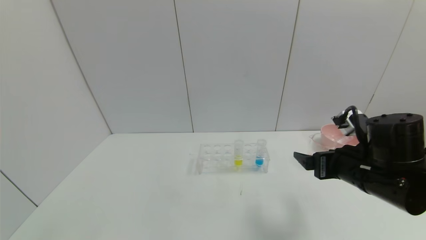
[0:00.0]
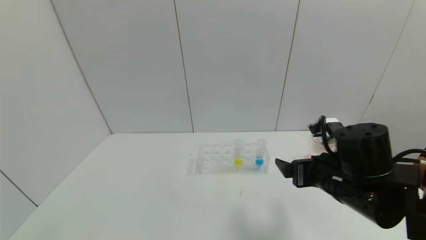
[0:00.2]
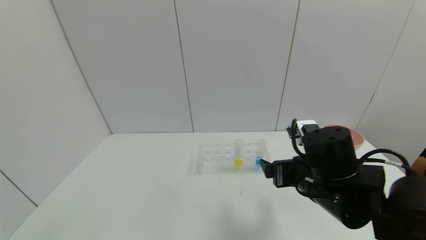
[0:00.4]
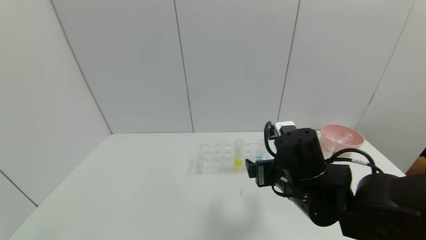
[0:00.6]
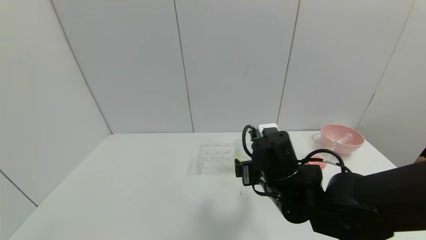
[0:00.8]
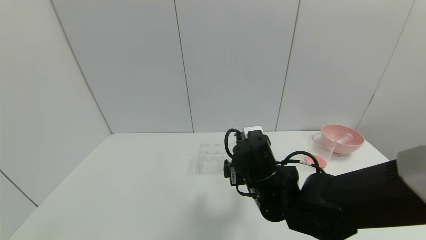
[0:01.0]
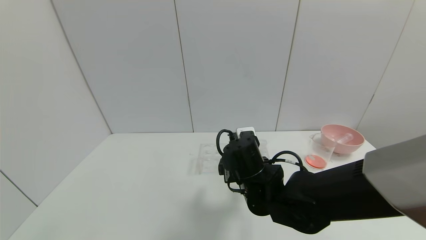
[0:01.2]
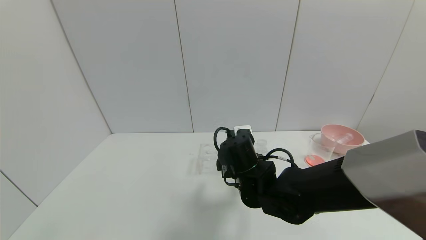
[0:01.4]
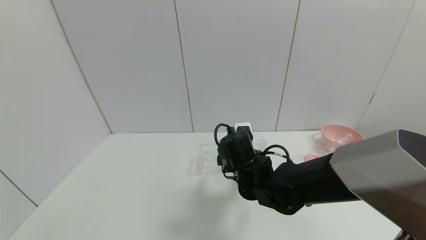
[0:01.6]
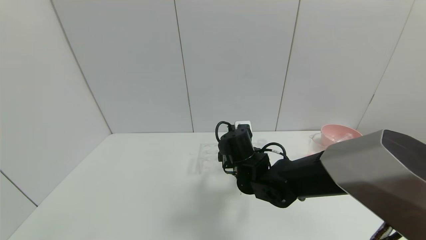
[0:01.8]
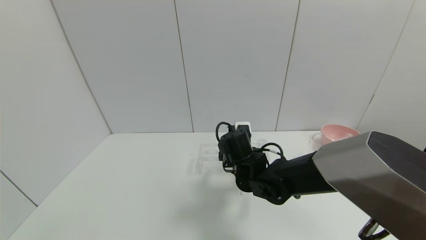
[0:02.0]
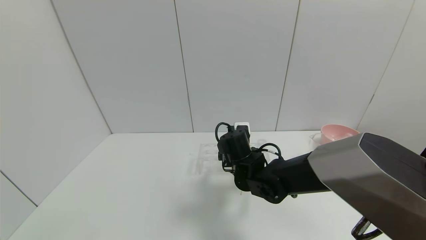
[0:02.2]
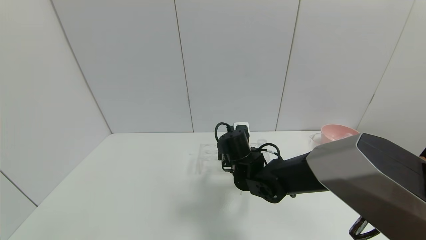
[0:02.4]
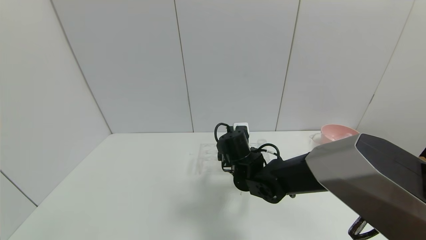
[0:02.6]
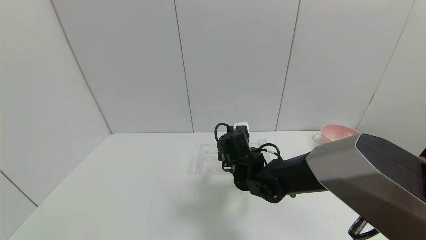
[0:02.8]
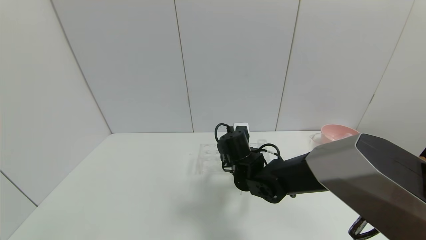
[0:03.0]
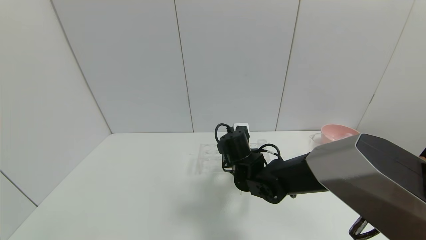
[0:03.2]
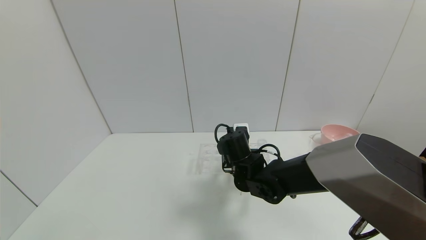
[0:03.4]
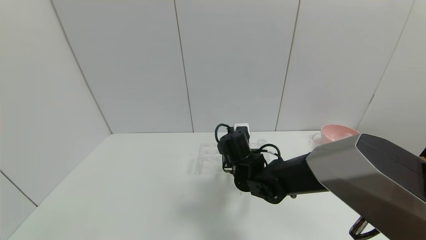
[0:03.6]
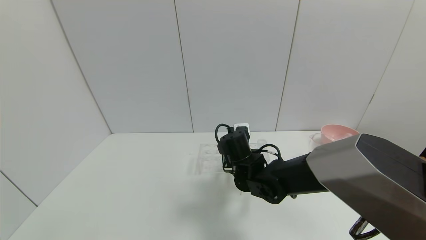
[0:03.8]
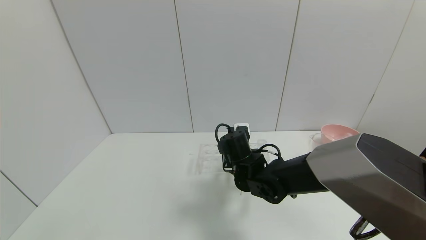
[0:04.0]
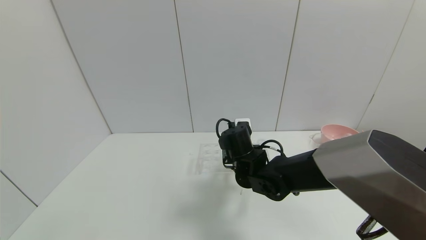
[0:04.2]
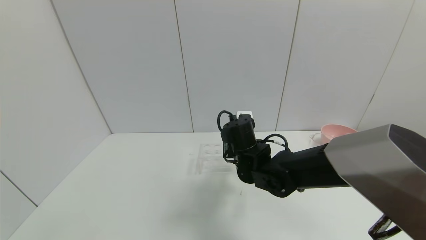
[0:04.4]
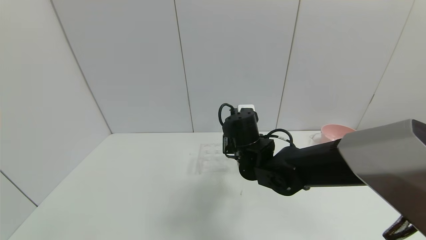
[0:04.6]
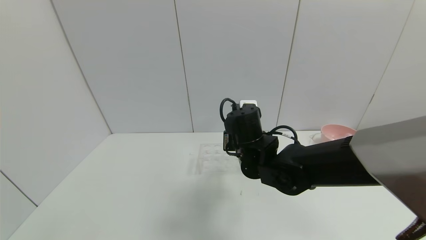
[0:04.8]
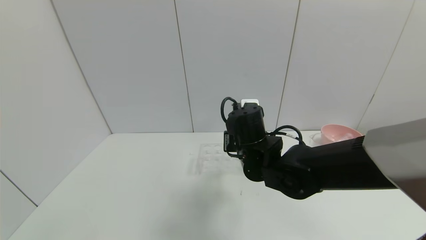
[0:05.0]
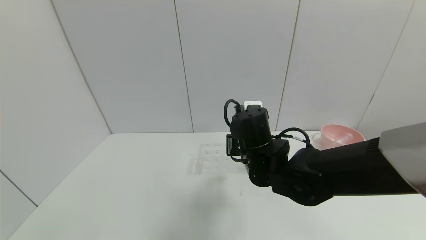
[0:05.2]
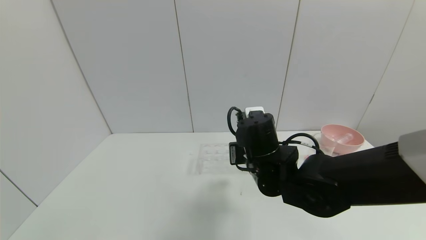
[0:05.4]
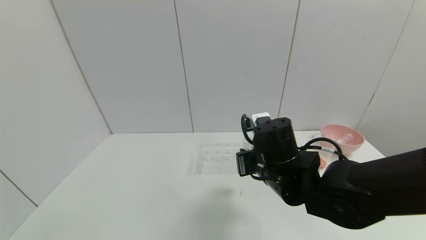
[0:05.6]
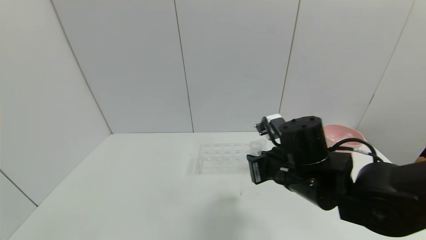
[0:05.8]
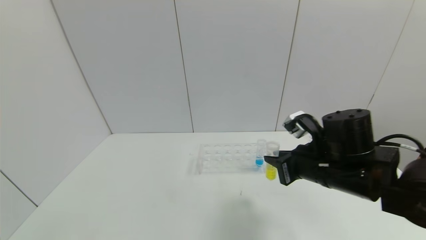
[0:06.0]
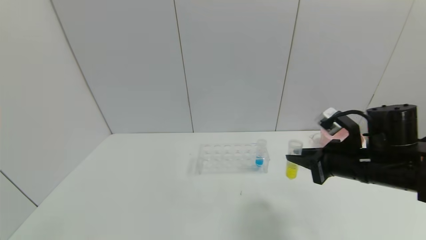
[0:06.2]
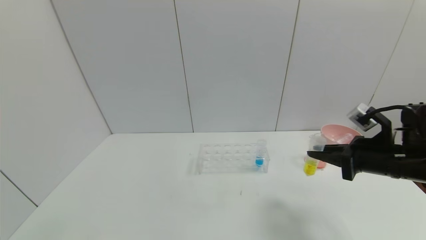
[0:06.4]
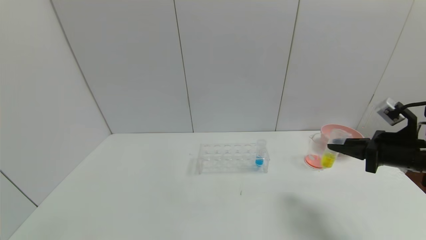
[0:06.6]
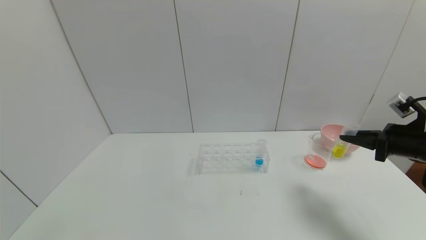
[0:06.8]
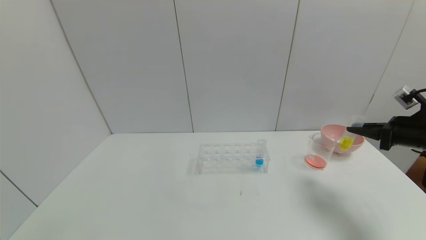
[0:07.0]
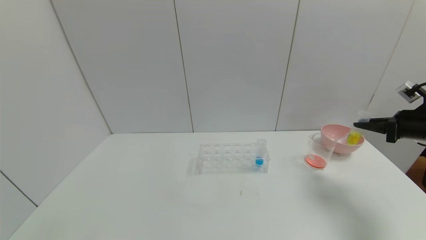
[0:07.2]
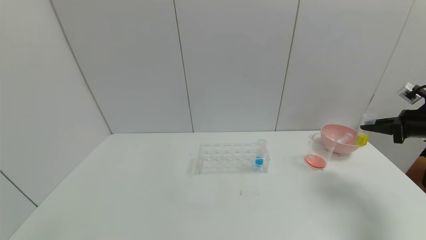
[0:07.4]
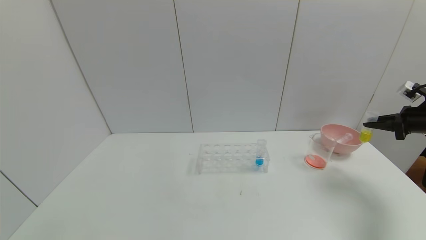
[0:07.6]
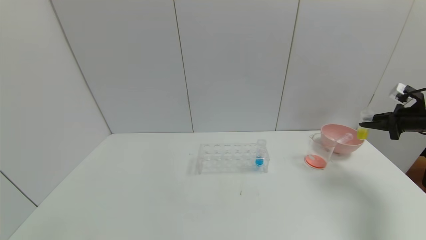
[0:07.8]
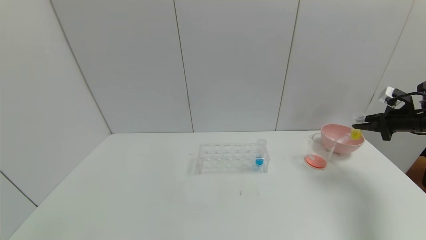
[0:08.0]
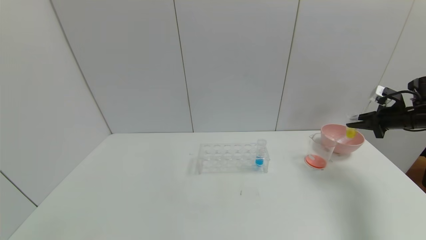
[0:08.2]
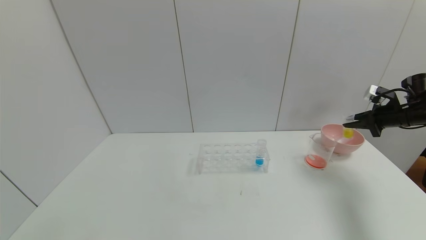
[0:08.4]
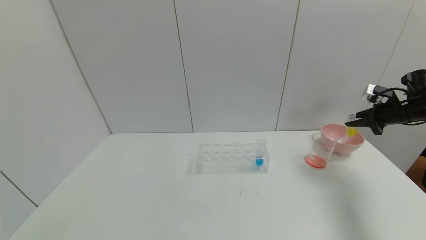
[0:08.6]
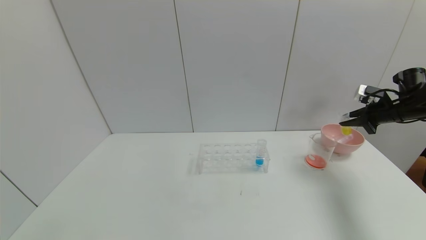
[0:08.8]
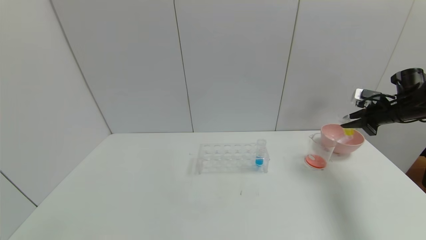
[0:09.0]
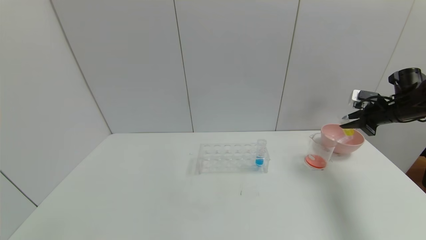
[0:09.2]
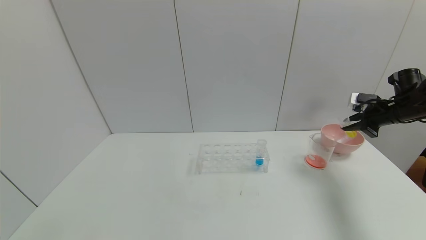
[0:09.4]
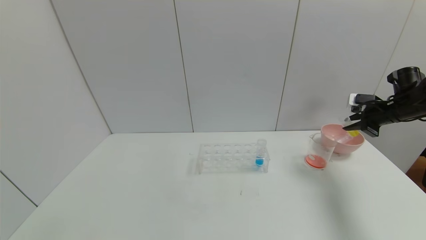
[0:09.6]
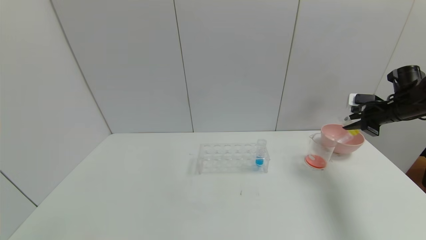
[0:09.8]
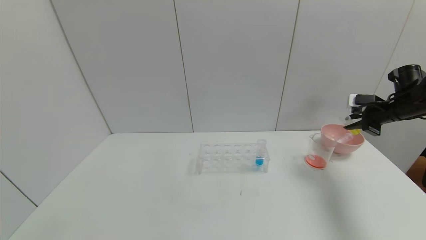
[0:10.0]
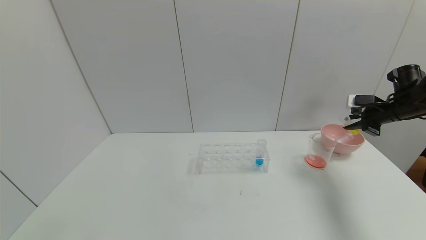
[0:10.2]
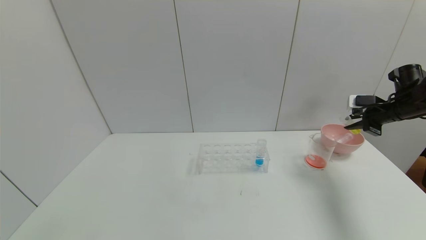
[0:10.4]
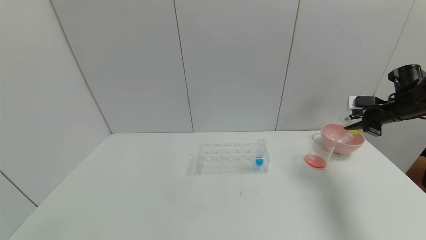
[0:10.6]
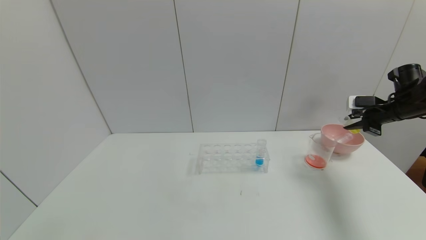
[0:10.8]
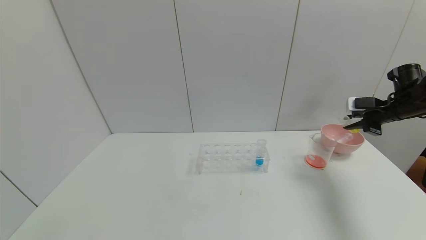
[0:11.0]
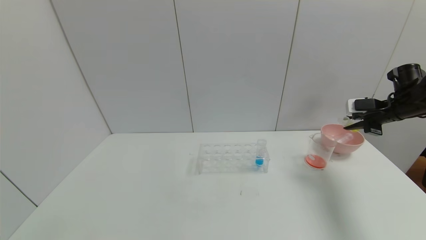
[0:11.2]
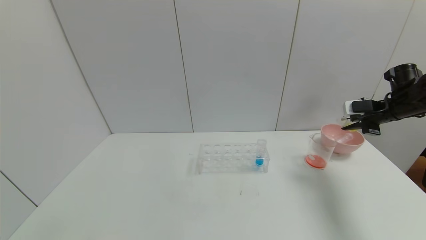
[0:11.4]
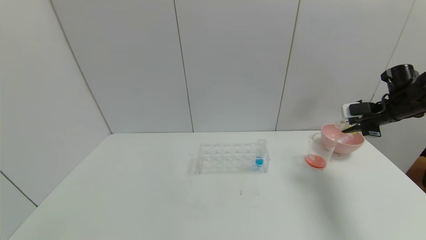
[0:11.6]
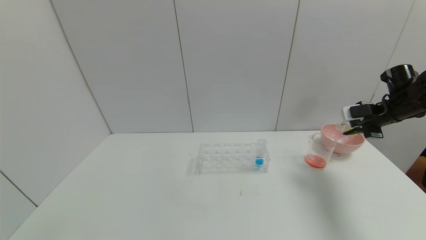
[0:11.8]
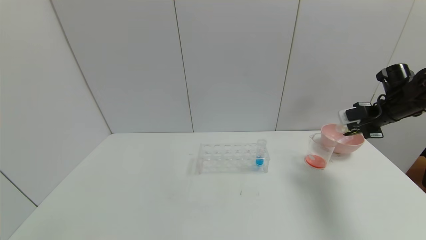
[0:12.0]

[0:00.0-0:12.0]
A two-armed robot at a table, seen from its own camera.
Task of the whole recording: pick up the test tube with yellow pigment and the test tube with red pigment by grippers and pour them into the beaker.
Step, 0:00.0 to 0:03.6: Grasp the yellow reagent with the right gripper.
0:00.0 to 0:01.6: The right gripper travels to the left and forward by approximately 20 cm.
0:01.6 to 0:03.0: The grippers make only small movements.
0:03.0 to 0:04.4: The right gripper closes up.
0:04.4 to 0:06.0: The right gripper goes about 15 cm to the right and backward.
0:06.0 to 0:07.6: The right gripper moves to the right, some 30 cm.
0:07.6 to 0:09.0: The right gripper shifts about 5 cm forward.
0:09.0 to 0:10.4: The grippers move only a little.

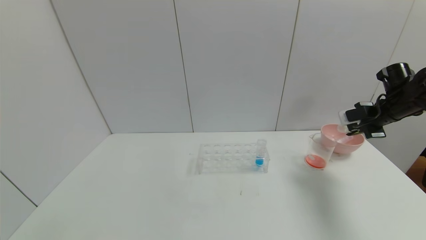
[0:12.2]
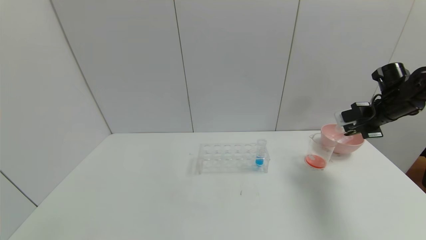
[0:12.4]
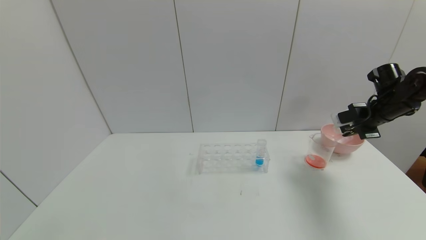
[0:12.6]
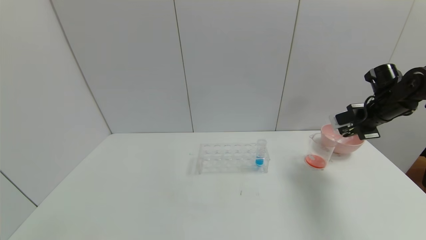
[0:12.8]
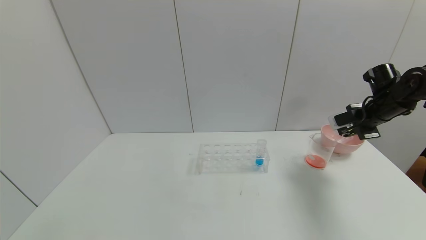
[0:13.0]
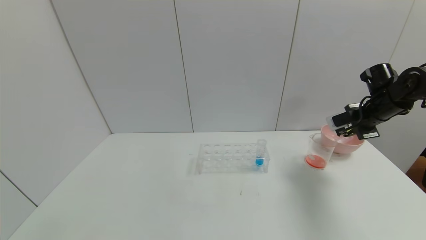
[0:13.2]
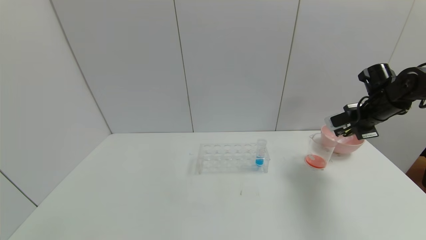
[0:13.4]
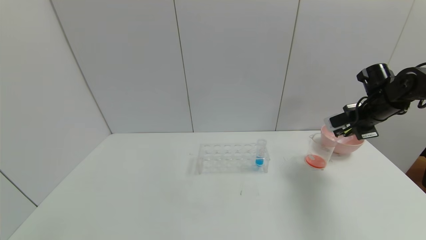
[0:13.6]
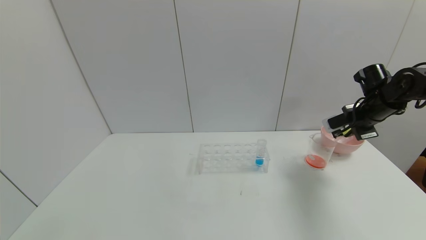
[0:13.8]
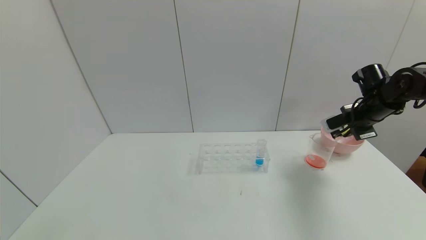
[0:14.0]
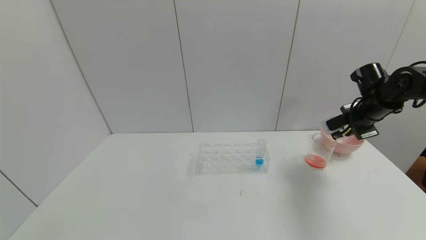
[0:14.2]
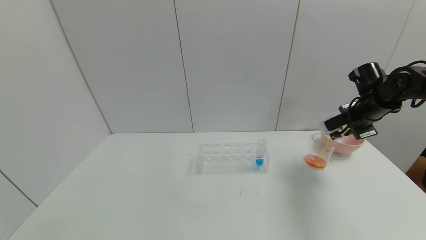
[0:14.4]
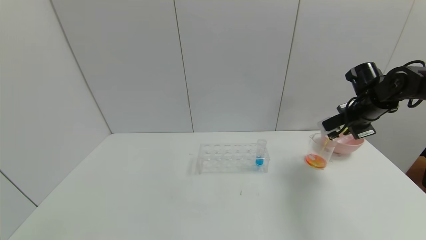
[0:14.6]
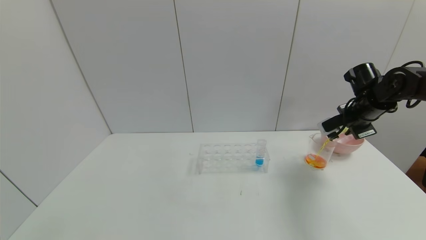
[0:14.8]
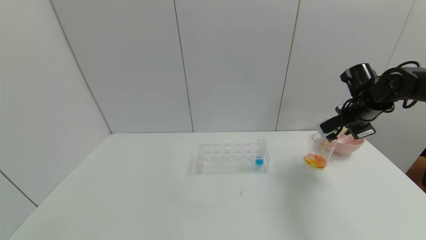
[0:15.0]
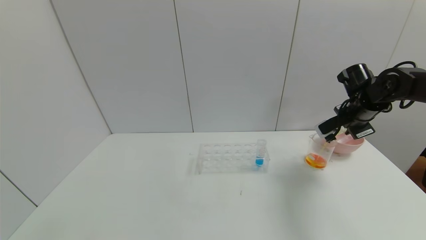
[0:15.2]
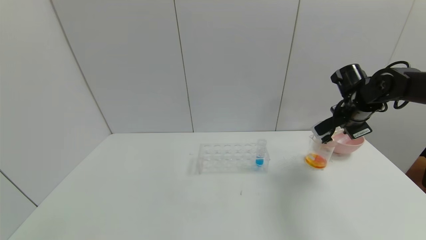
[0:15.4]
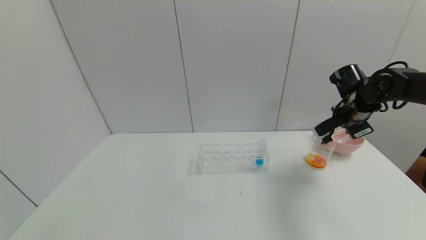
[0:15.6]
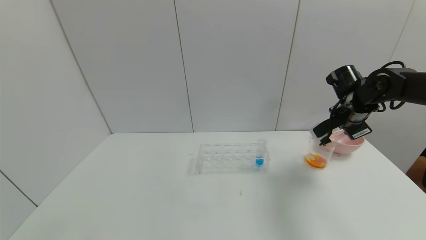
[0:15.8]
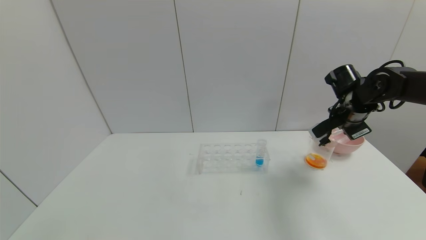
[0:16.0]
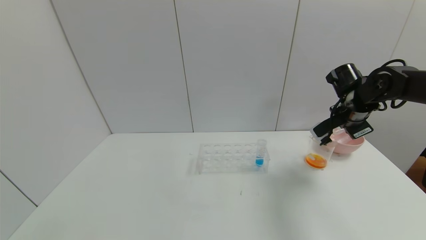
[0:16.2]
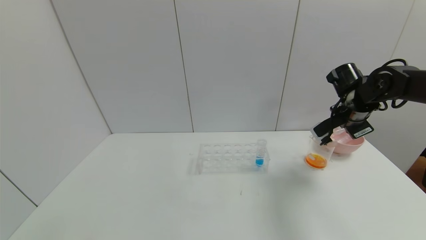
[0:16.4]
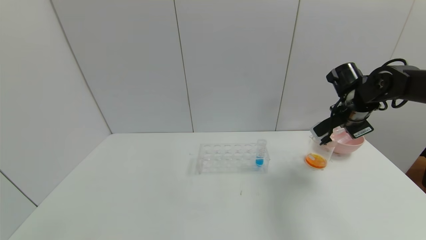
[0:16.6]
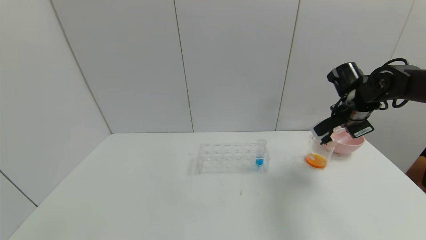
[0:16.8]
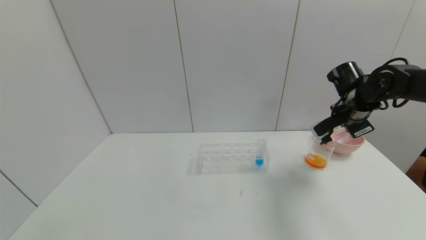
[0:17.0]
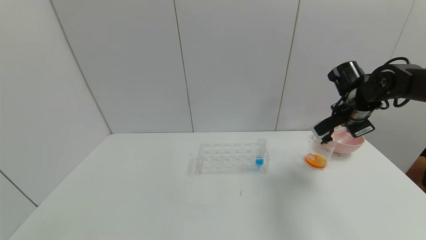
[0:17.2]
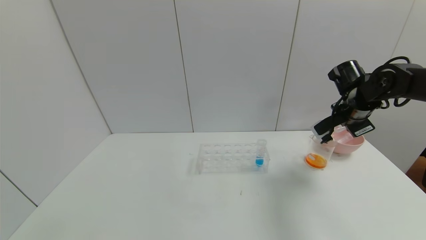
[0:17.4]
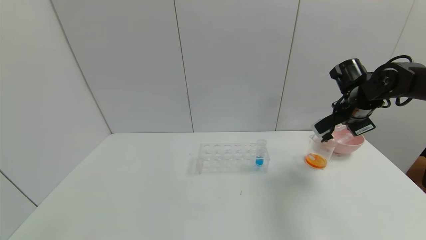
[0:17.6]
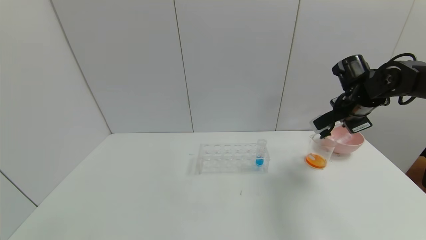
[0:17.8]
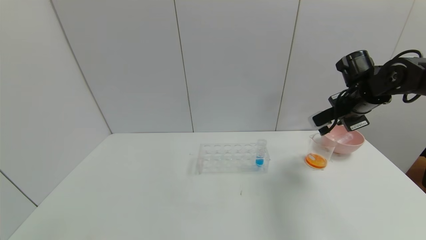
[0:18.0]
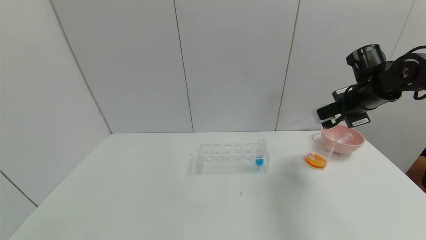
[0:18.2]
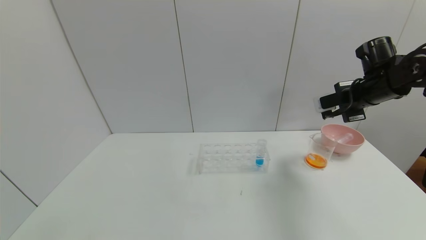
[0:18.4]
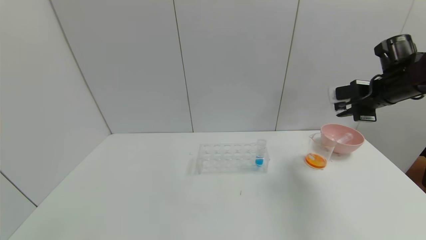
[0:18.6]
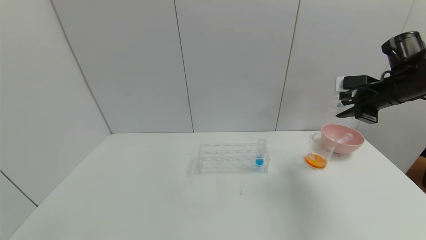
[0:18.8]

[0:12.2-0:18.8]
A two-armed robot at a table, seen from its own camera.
Task of the whole recording: pick up the test tube with yellow pigment and the test tube with red pigment by grippers and pour them into the beaker.
Step, 0:12.2 to 0:16.2: Pour the yellow reagent into the graduated cylinder with the right gripper.
0:12.2 to 0:13.8: The grippers stay close to where they were, moving slightly.
0:13.8 to 0:15.4: The grippers stay close to where they were, moving slightly.
0:15.4 to 0:17.2: The grippers stay close to where they were, moving slightly.
0:17.2 to 0:18.8: The right gripper travels to the right and upward by roughly 10 cm.
